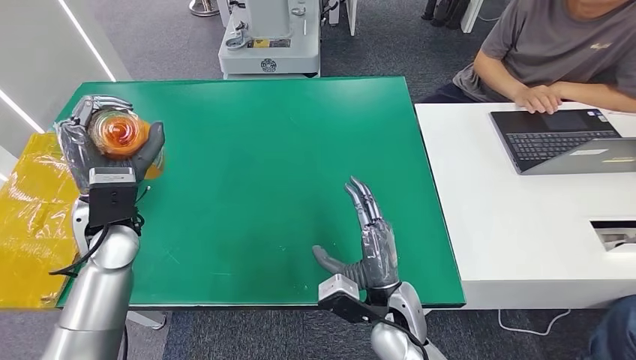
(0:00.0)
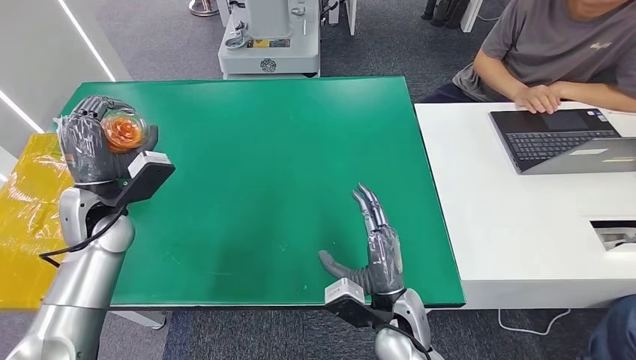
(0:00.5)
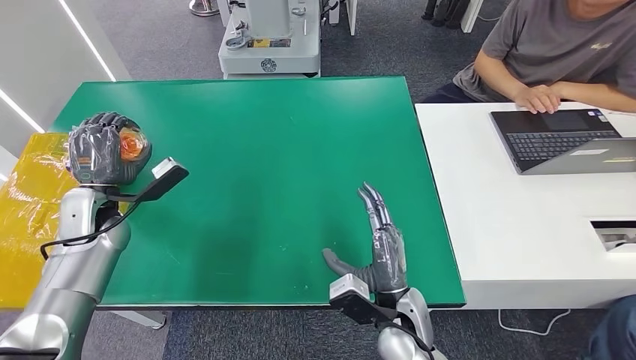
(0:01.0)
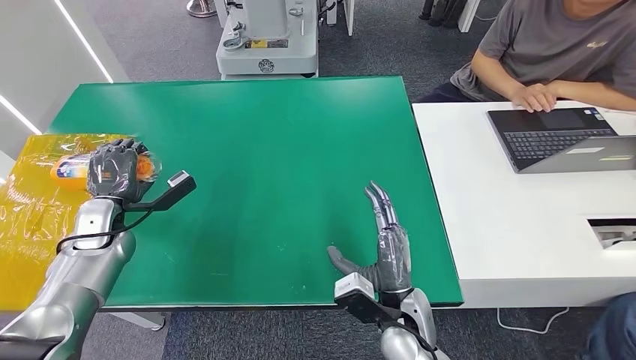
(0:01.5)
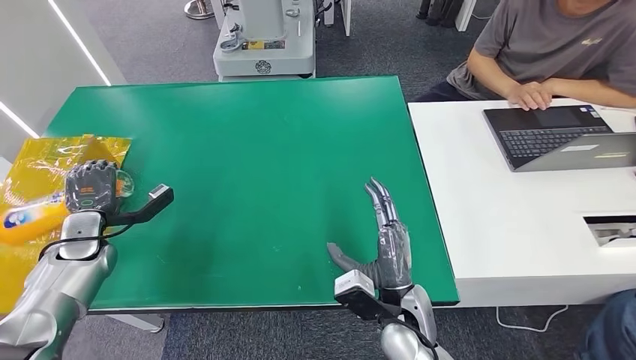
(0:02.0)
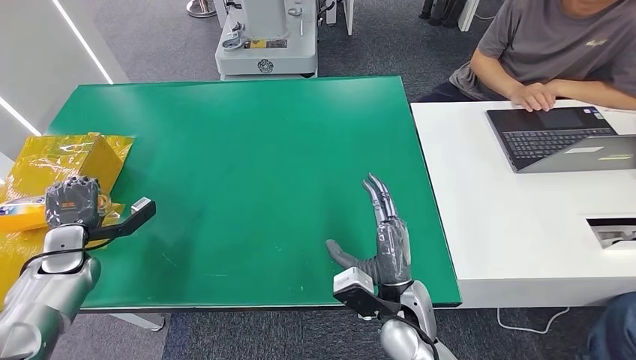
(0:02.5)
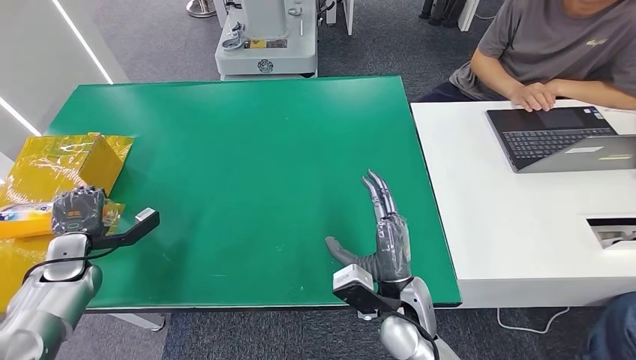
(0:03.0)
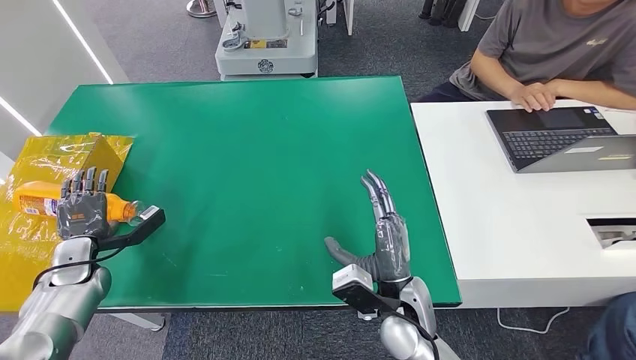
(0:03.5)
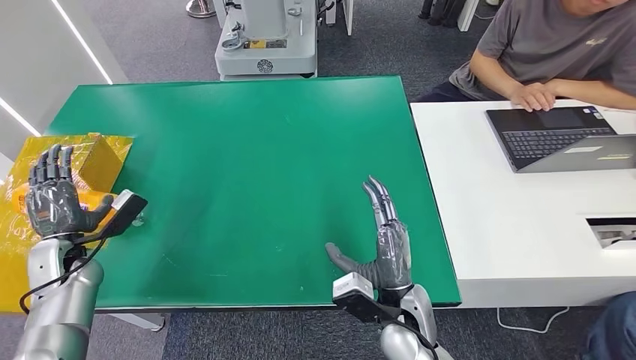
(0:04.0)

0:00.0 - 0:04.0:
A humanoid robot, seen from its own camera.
Step, 0:00.0 - 0:04.0: Turn the bottle to the front side.
